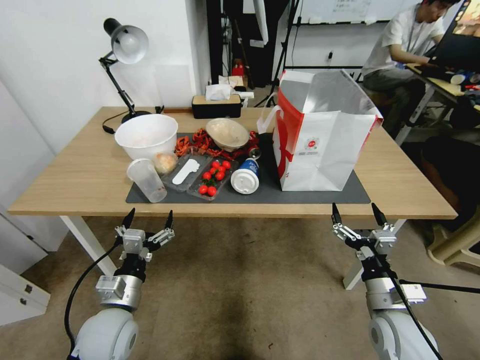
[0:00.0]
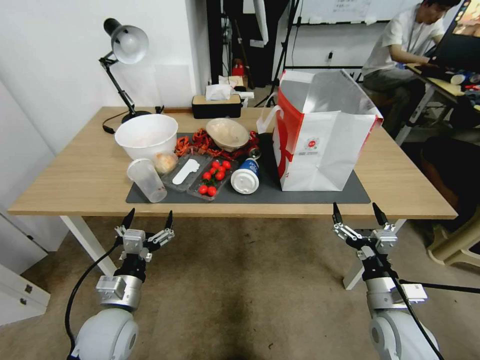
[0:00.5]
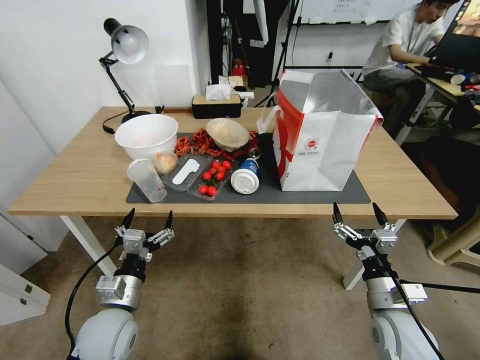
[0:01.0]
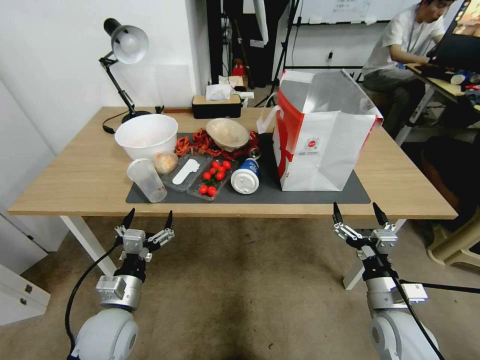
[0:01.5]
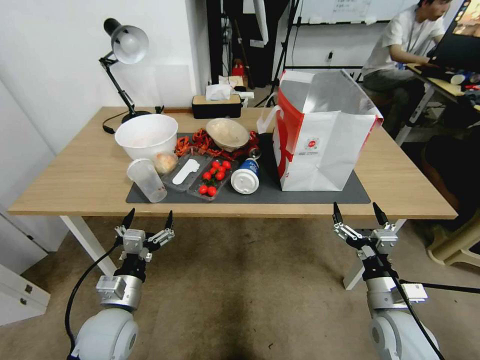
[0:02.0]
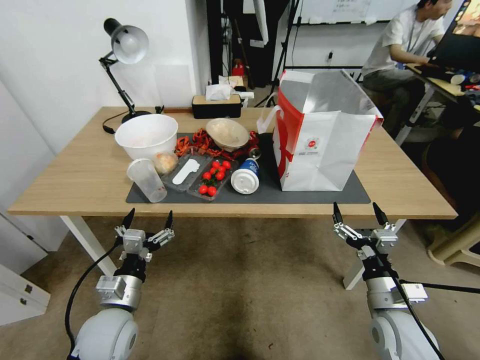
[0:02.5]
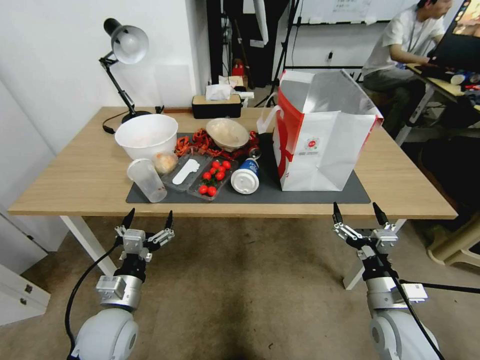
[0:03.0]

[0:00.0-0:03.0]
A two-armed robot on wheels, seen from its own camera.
Task of the whole recording: Pick up the food delivery bag from the floor and place it on the table.
0:00.0 to 0:03.0: Both grippers stay about where they are.
